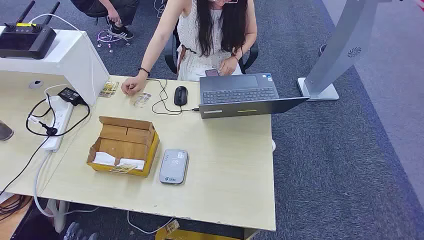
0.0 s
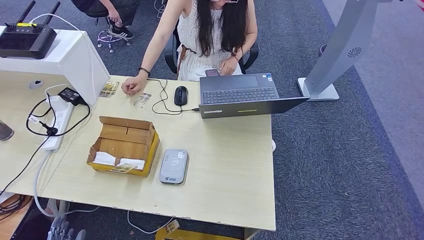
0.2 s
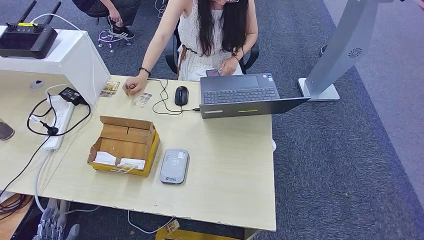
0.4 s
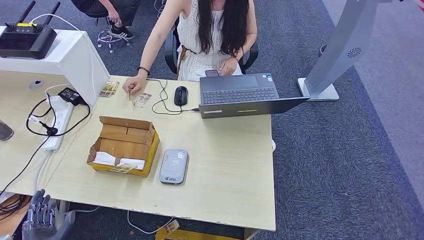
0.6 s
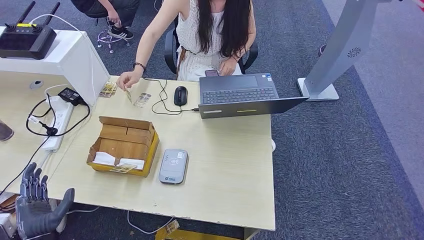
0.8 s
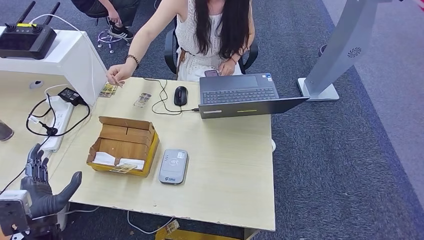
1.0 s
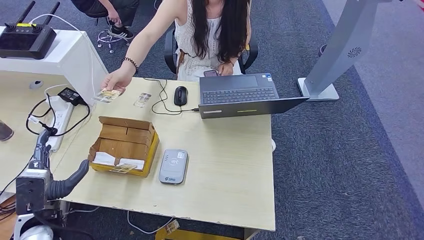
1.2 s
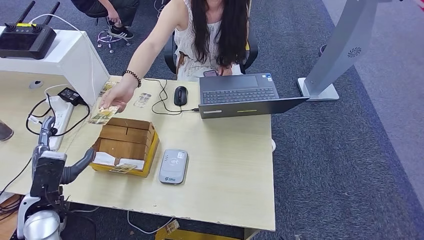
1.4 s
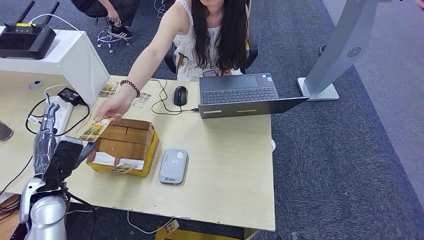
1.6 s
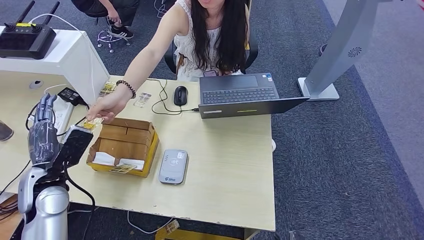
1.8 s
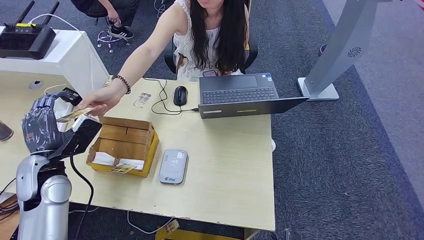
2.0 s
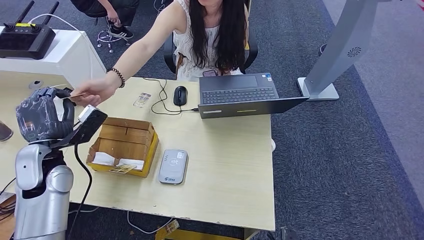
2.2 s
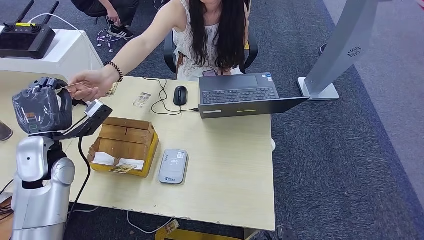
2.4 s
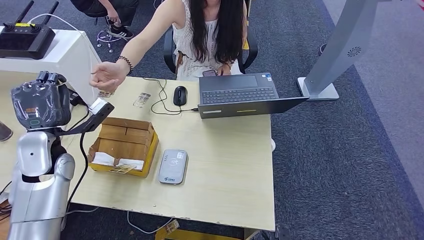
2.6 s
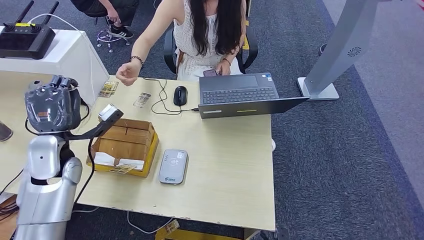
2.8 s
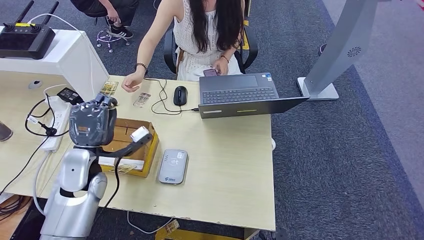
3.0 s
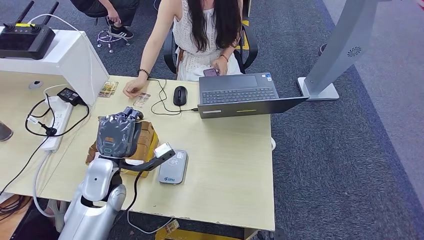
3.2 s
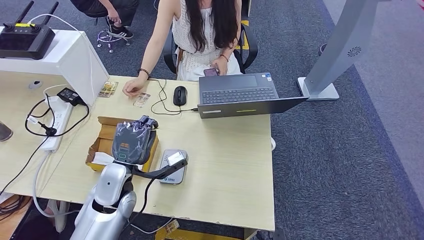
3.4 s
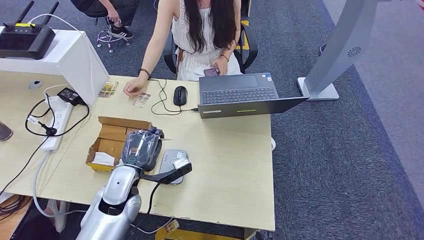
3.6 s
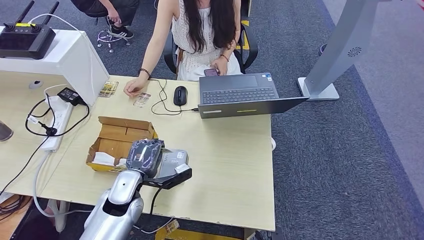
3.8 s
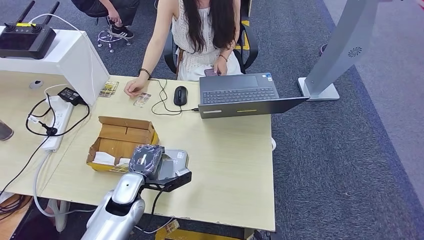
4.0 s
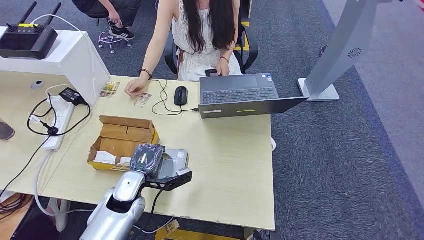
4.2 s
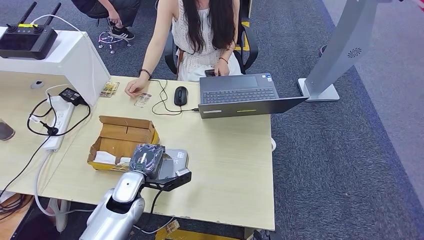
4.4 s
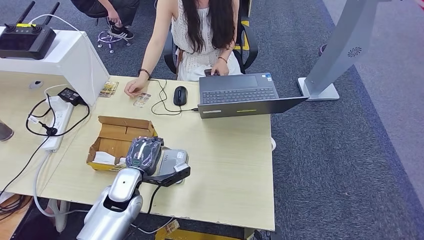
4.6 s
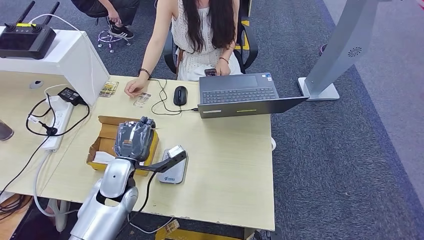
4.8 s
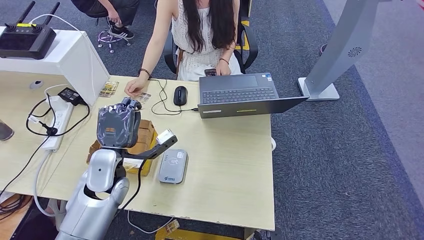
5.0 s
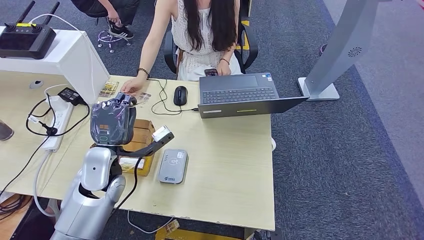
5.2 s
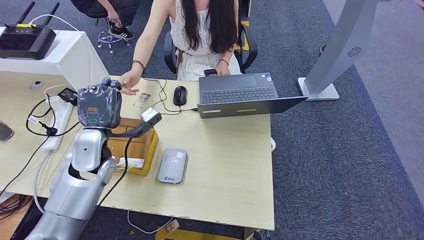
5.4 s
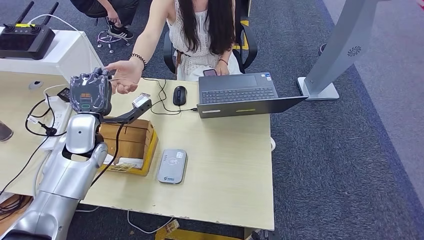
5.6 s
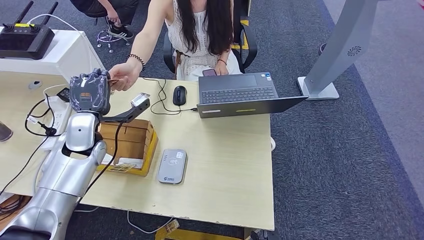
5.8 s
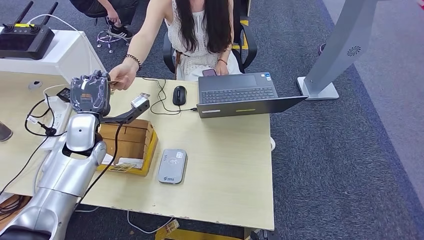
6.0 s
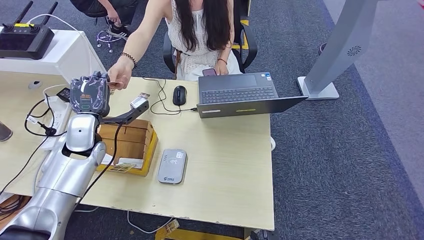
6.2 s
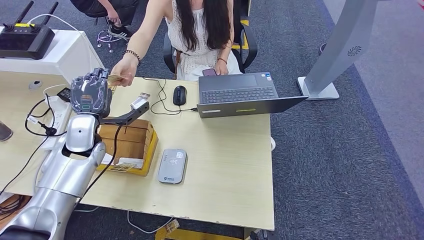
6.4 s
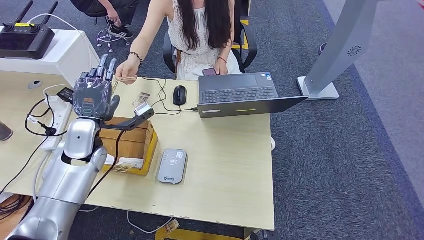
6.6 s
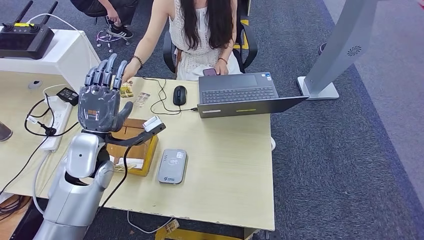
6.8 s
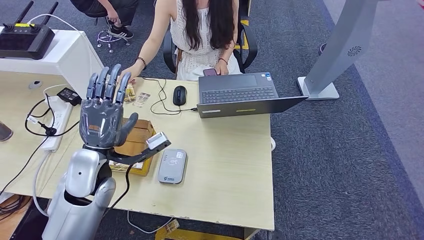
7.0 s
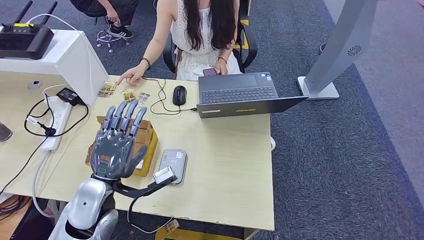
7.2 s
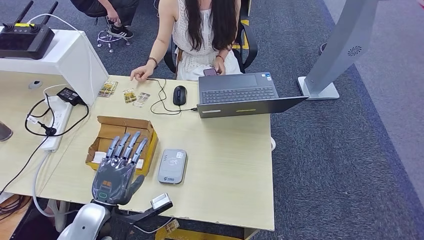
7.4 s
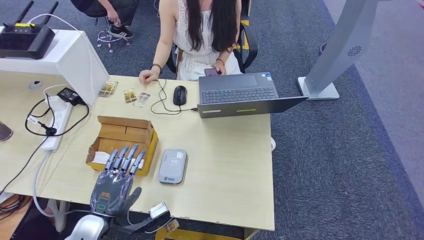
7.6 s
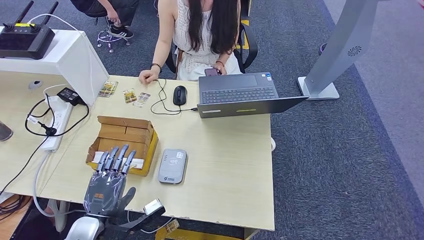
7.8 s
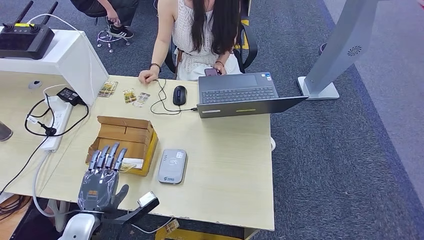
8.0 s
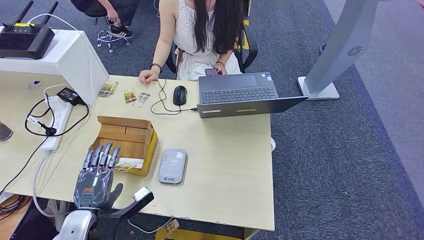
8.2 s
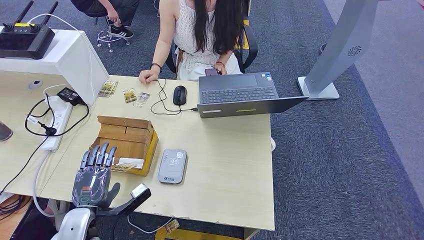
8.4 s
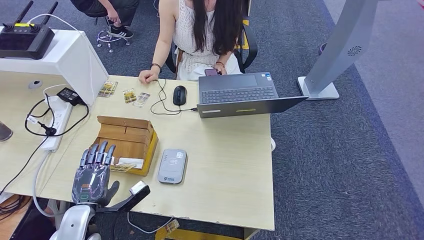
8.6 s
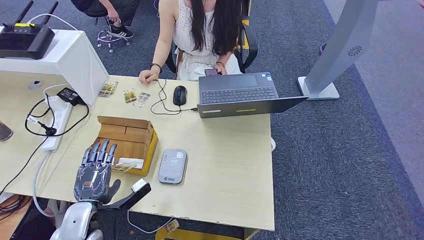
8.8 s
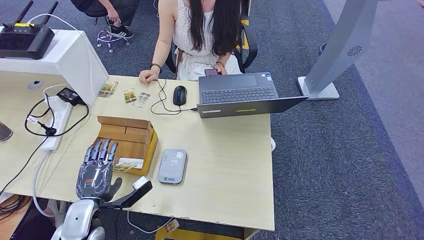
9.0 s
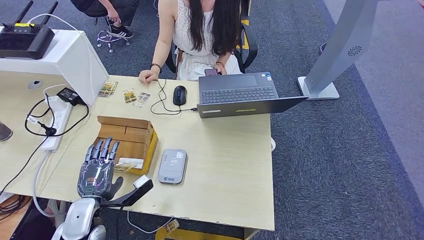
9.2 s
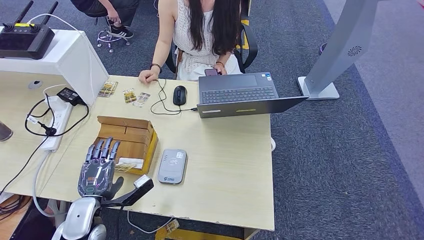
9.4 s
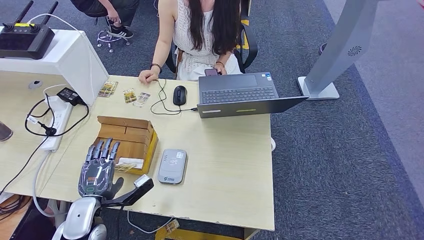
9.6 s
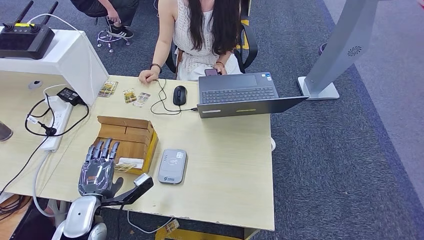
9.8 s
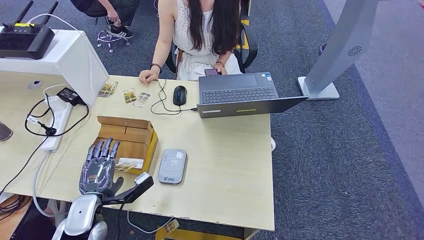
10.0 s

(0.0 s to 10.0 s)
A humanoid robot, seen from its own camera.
Step, 0.0 s - 2.2 s: Take the ID card from the person's hand.
Step, 2.4 s - 4.0 s: Place the ID card on the card reader.
Step, 4.2 s - 5.8 s: Hand the ID card to the person.
1.4 s - 2.8 s: The left hand is displaced forward and upward by roughly 15 cm.
5.8 s - 7.2 s: The left hand heads backward and to the right, covering approximately 15 cm.
7.2 s - 8.6 s: The left hand goes approximately 15 cm downward, to the left and backward.
8.6 s - 10.0 s: The hands stay close to where they were, moving slightly.

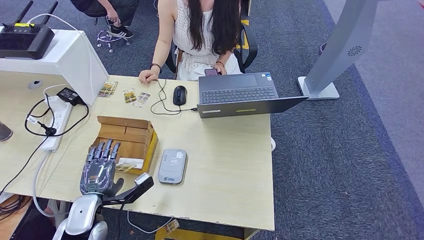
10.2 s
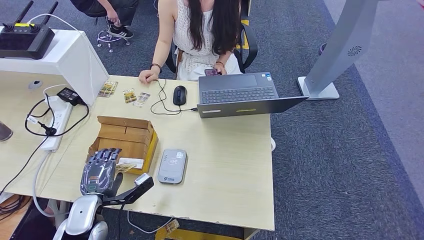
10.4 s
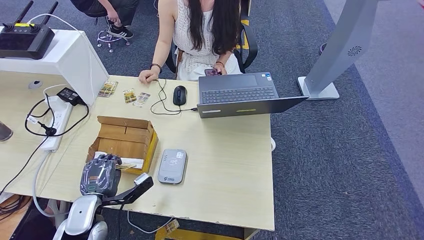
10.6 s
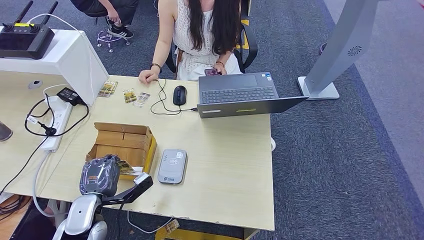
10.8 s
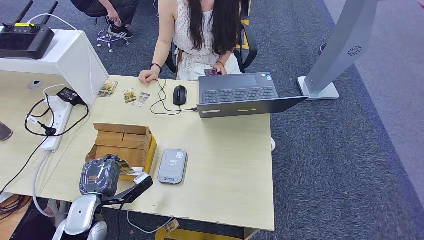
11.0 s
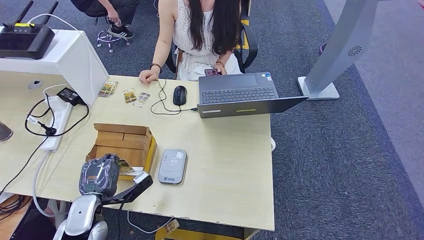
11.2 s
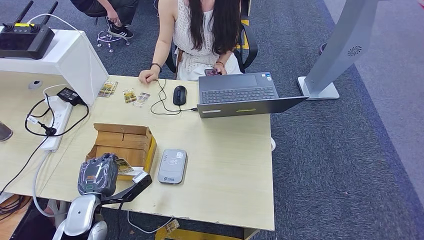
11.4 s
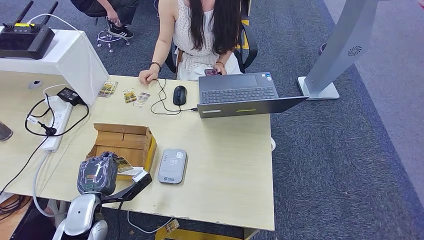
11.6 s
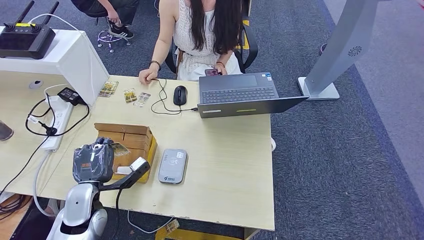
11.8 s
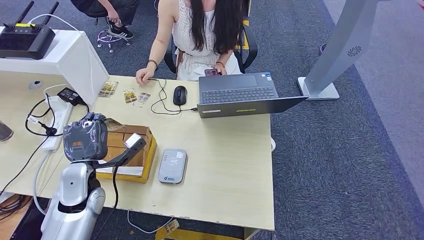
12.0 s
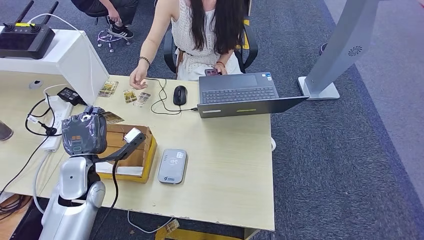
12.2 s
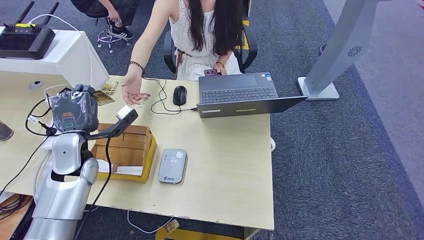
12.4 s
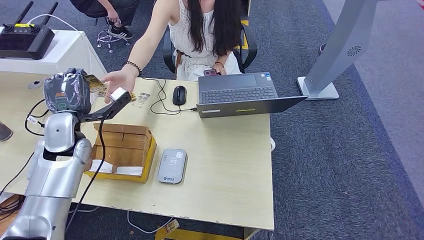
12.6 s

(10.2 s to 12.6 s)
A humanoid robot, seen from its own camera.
Step, 12.2 s - 12.6 s: Hand the room key to the person.
10.2 s - 11.4 s: Both hands stay about where they are.
11.4 s - 12.6 s: The left hand moves forward and upward, about 20 cm.
